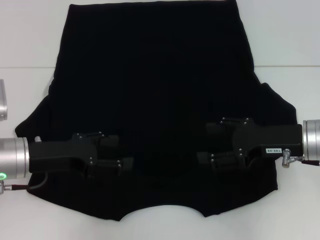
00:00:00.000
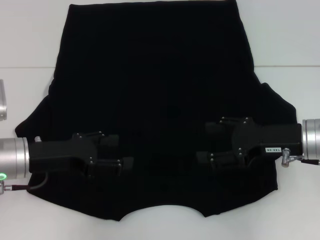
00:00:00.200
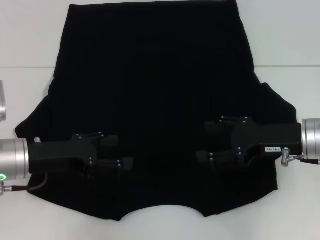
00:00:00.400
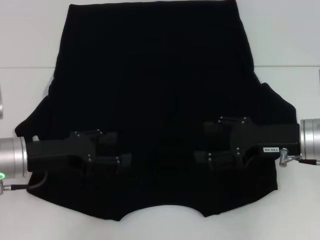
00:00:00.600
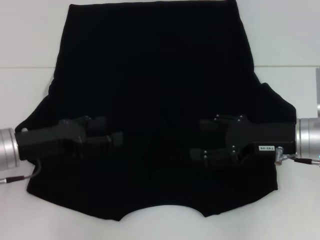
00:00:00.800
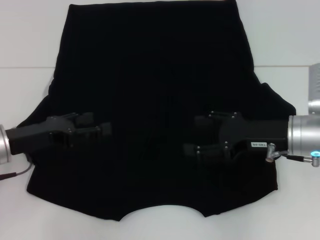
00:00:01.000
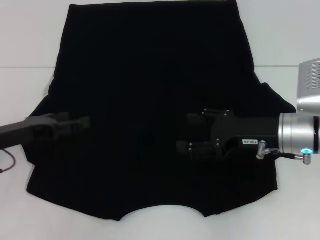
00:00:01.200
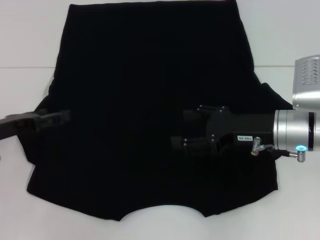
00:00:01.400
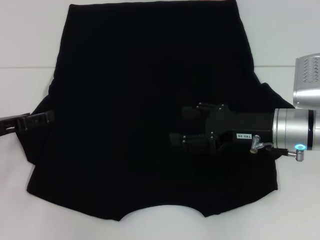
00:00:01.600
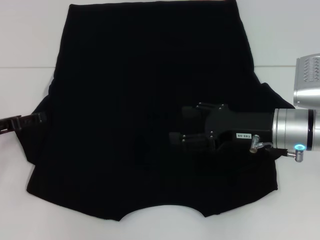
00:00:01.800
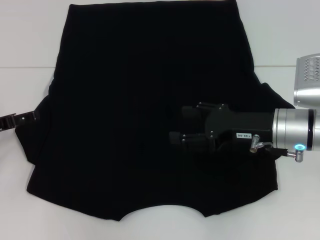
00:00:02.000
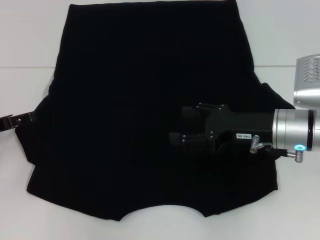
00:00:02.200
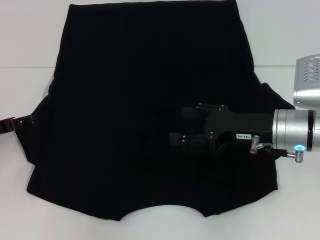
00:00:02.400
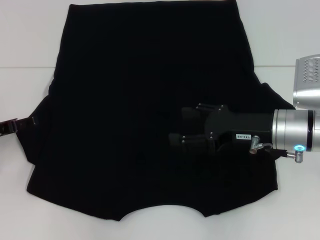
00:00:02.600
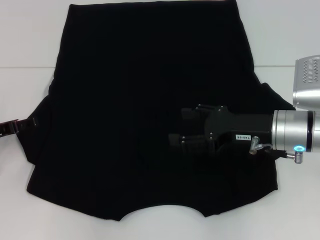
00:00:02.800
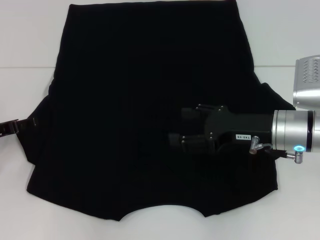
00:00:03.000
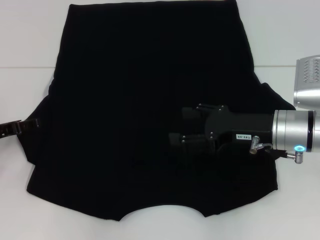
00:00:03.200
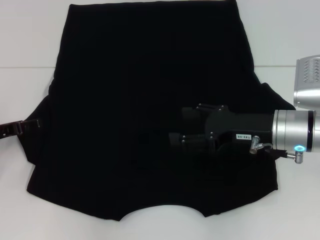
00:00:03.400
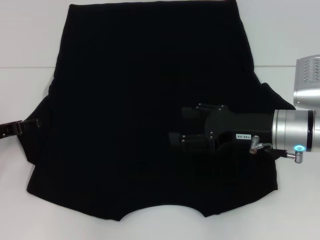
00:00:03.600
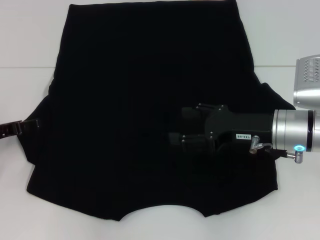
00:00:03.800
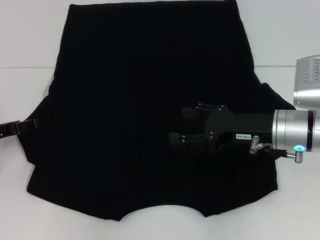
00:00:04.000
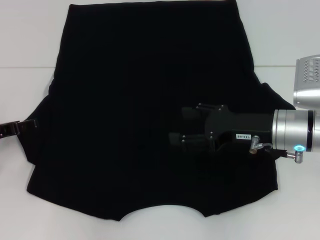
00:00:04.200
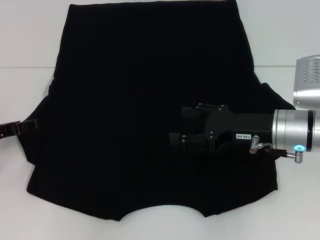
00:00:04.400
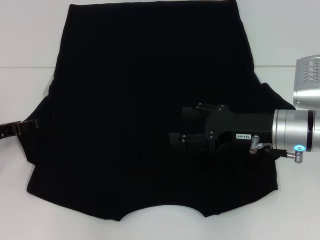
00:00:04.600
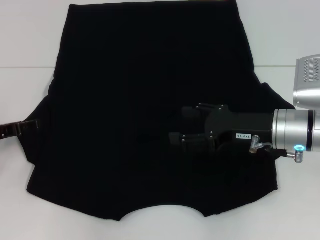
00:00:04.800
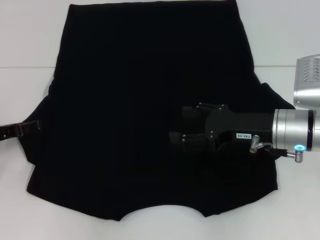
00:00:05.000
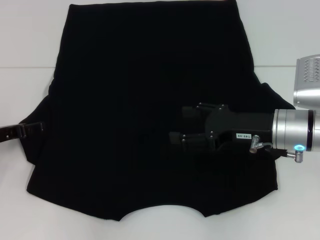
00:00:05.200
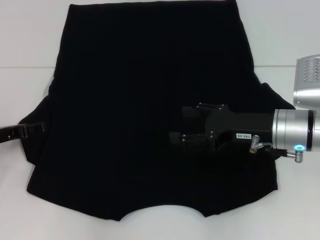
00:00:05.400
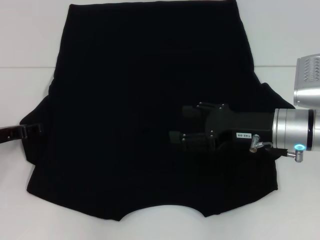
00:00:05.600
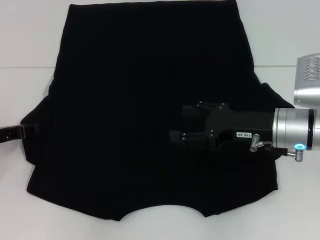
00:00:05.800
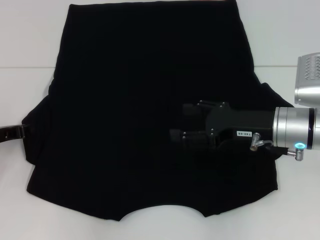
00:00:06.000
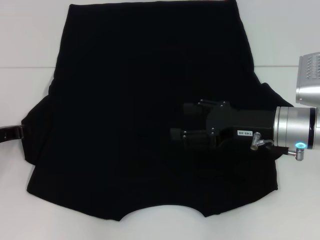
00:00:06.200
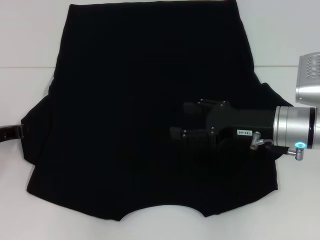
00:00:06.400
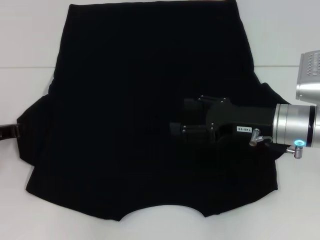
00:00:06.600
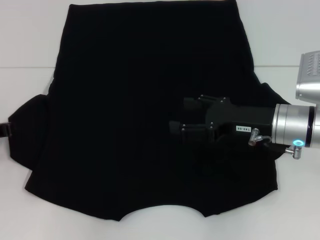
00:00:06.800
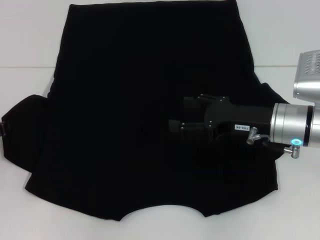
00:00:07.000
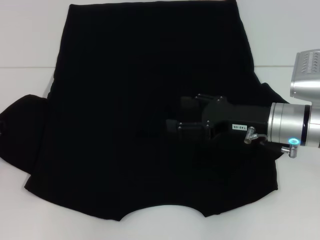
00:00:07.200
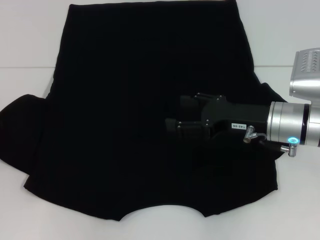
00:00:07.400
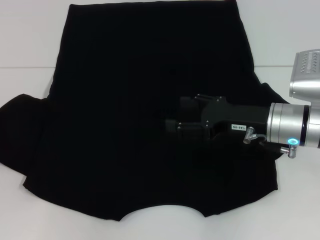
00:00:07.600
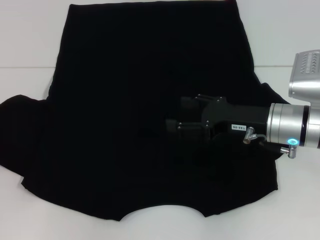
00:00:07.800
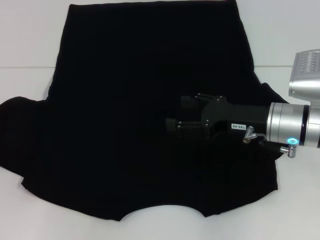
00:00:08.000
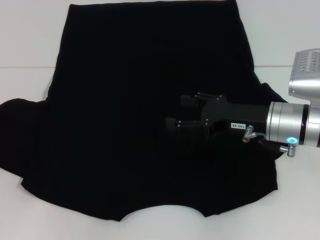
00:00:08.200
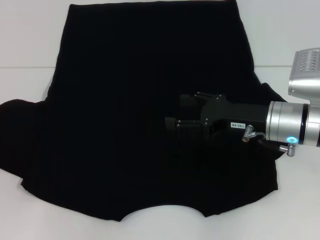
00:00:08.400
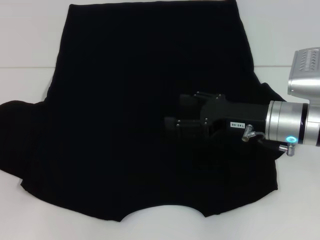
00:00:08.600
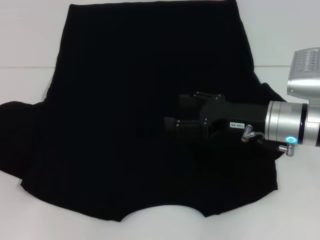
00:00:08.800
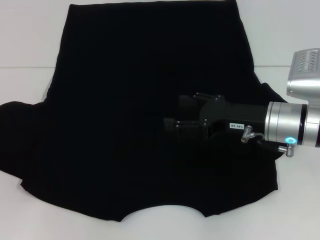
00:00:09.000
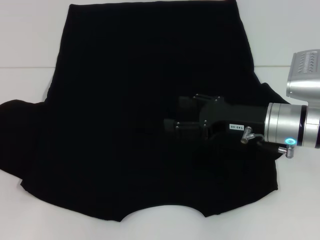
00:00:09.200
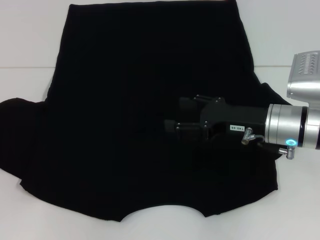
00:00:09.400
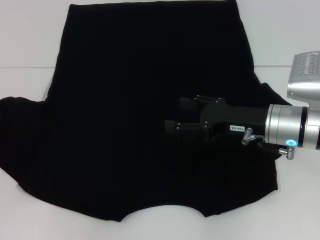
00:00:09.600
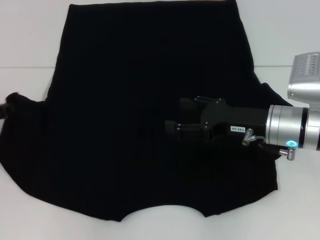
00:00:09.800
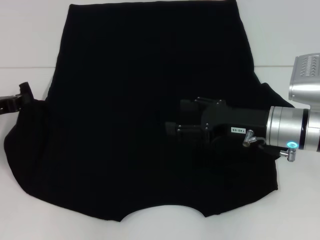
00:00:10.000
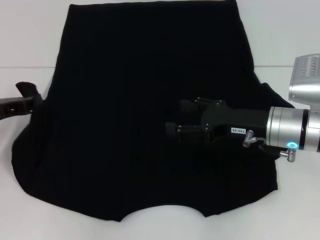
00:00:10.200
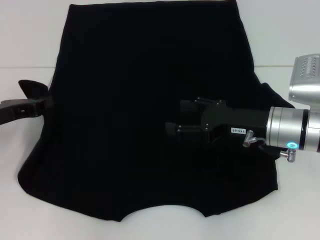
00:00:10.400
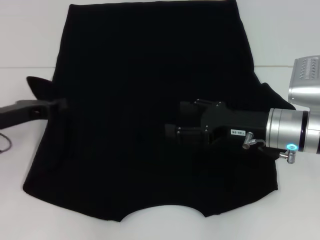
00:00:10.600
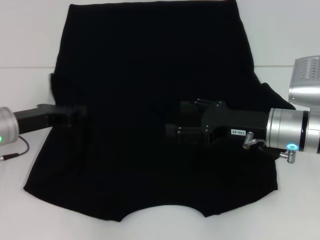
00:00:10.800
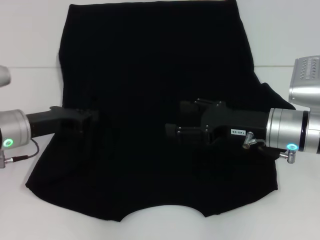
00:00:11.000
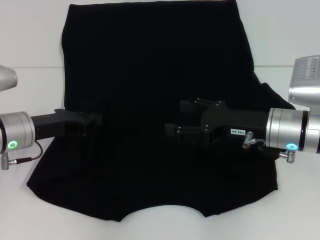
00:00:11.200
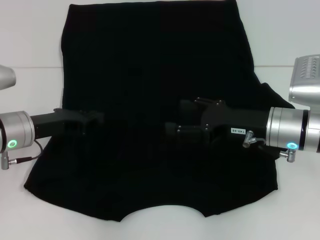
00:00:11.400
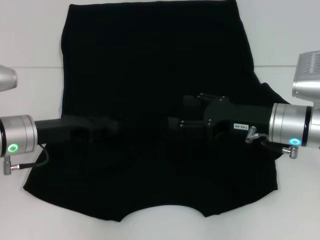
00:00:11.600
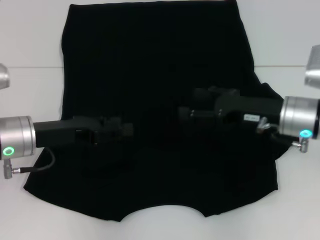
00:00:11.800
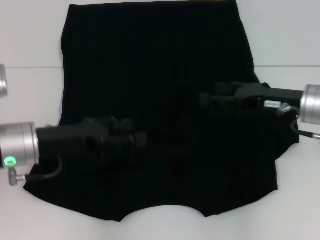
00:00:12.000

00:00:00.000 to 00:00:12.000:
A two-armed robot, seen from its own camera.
Step, 00:00:00.000 to 00:00:11.600: Fold the bottom left sleeve with your left hand.
00:00:00.000 to 00:00:01.600: The left gripper goes roughly 10 cm to the left.
00:00:01.600 to 00:00:03.000: The grippers stay close to where they were, moving slightly.
00:00:03.000 to 00:00:04.400: The two grippers keep their place.
00:00:06.000 to 00:00:07.600: The left gripper closes up.
00:00:07.600 to 00:00:09.000: There are only small adjustments of the grippers.
00:00:09.000 to 00:00:10.400: The left gripper goes approximately 5 cm to the right.
00:00:10.400 to 00:00:12.000: The left gripper moves to the right, about 10 cm, and opens its fingers. The right gripper ends up roughly 5 cm from where it was.

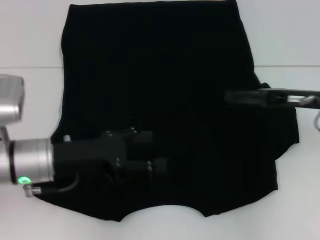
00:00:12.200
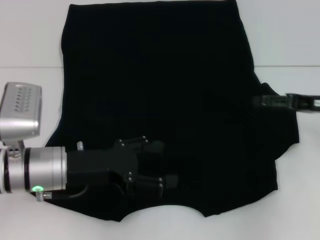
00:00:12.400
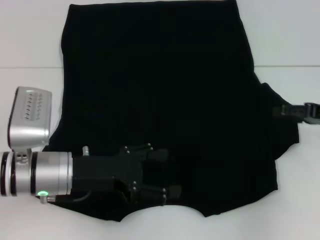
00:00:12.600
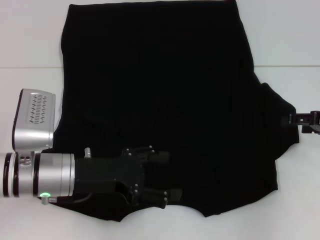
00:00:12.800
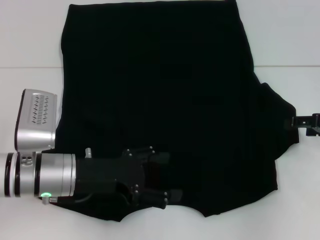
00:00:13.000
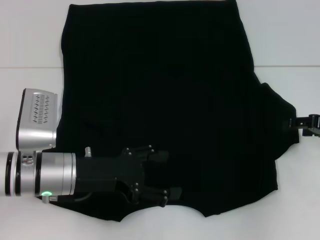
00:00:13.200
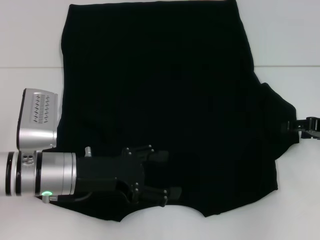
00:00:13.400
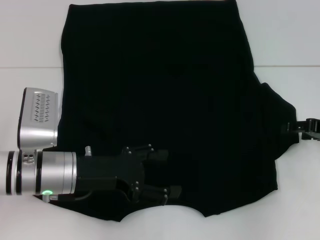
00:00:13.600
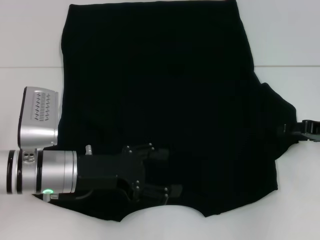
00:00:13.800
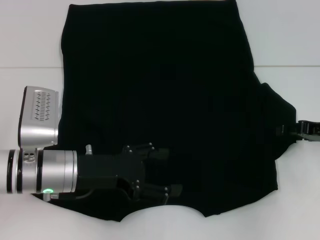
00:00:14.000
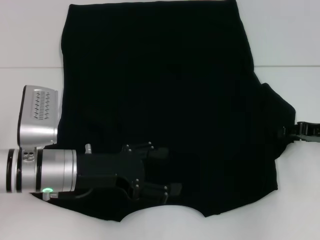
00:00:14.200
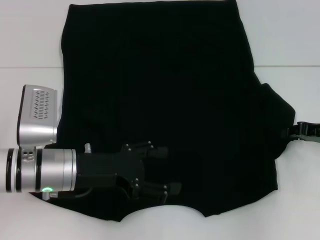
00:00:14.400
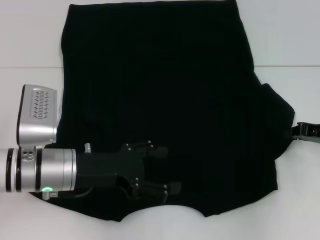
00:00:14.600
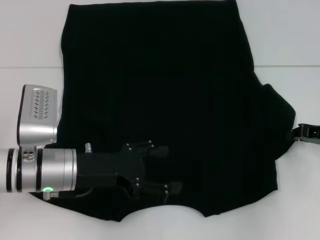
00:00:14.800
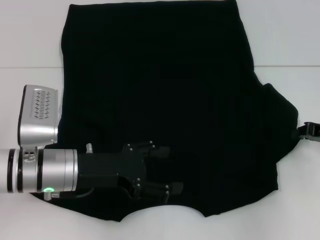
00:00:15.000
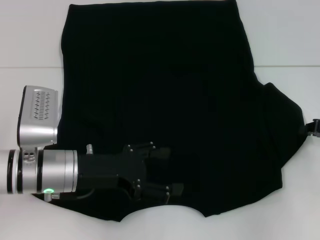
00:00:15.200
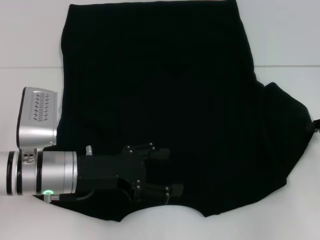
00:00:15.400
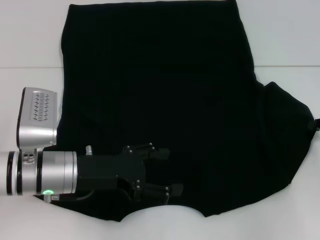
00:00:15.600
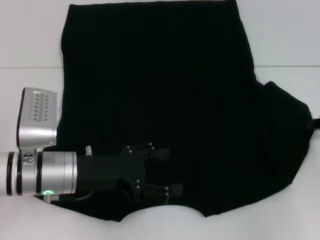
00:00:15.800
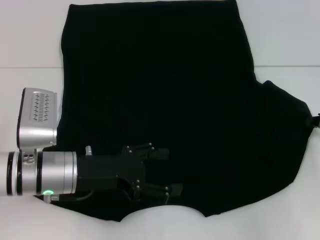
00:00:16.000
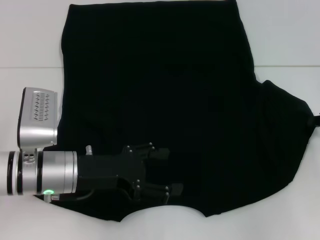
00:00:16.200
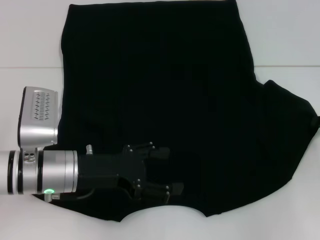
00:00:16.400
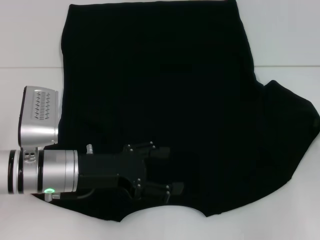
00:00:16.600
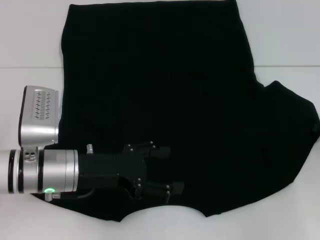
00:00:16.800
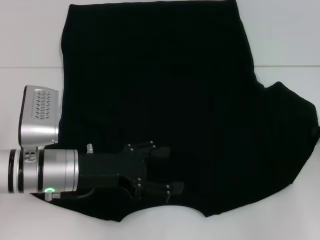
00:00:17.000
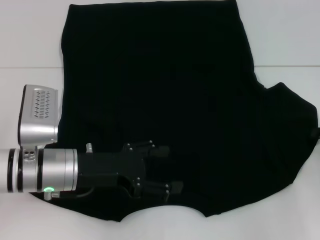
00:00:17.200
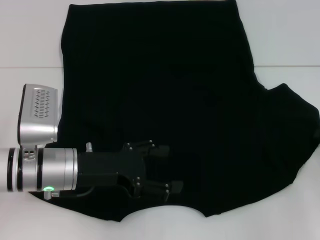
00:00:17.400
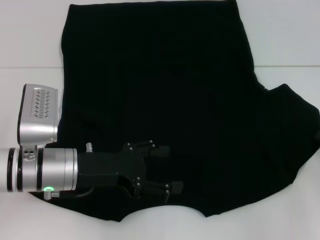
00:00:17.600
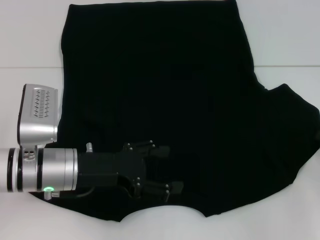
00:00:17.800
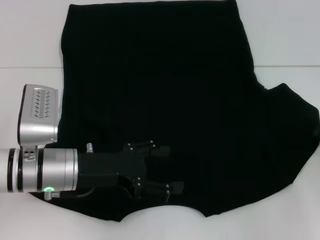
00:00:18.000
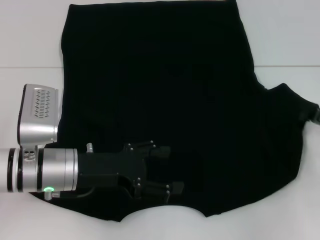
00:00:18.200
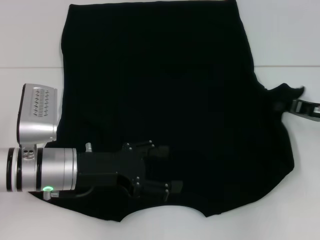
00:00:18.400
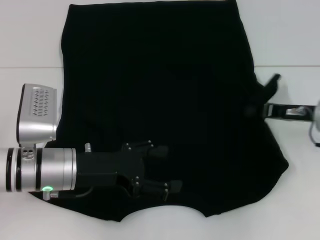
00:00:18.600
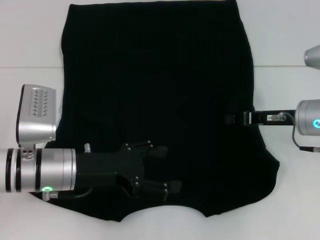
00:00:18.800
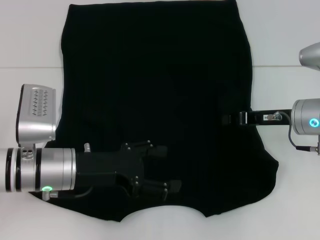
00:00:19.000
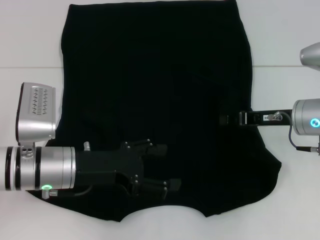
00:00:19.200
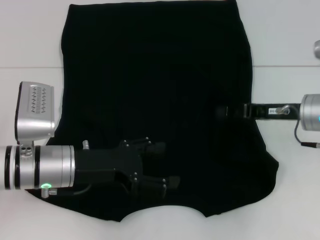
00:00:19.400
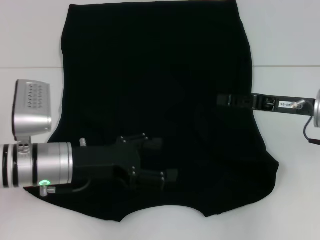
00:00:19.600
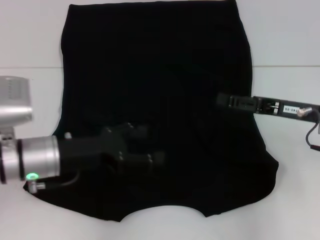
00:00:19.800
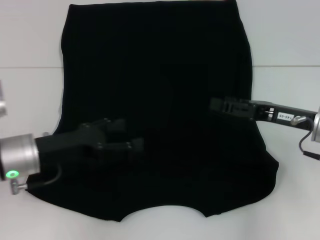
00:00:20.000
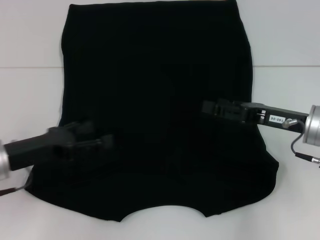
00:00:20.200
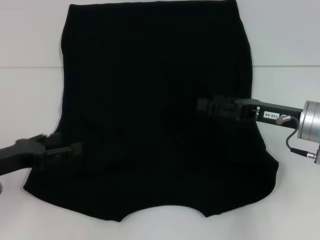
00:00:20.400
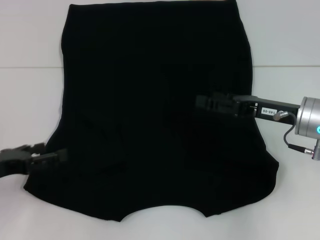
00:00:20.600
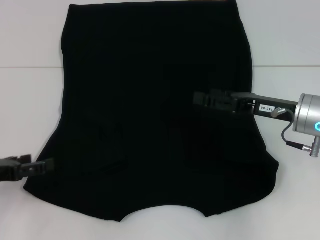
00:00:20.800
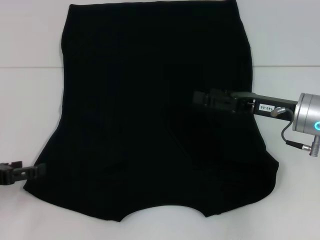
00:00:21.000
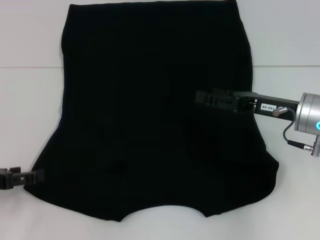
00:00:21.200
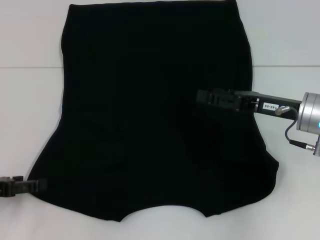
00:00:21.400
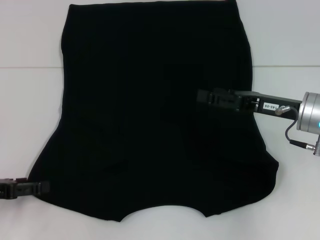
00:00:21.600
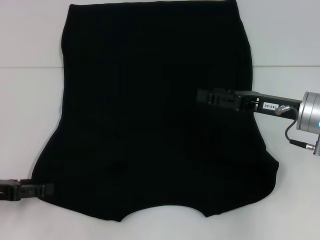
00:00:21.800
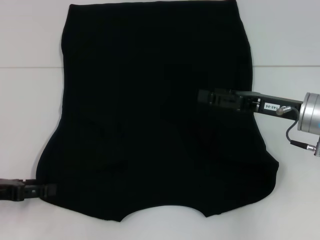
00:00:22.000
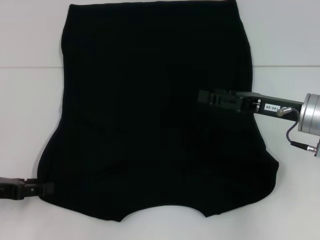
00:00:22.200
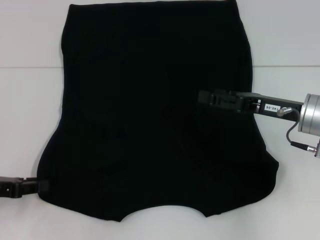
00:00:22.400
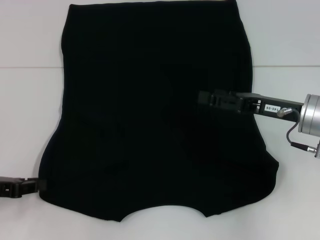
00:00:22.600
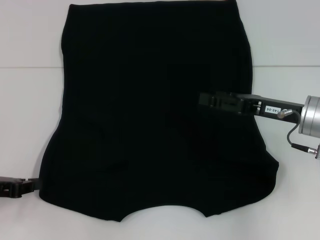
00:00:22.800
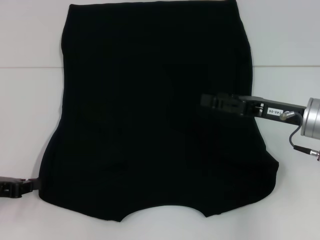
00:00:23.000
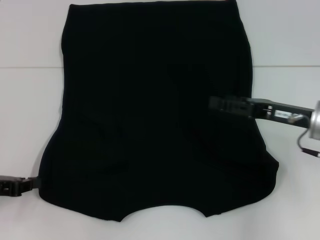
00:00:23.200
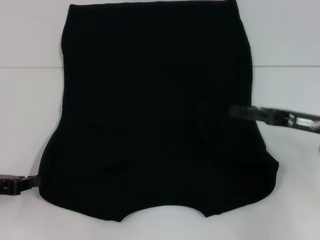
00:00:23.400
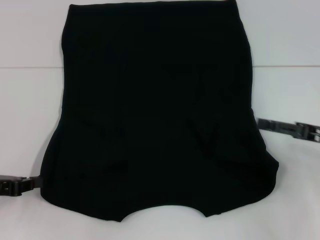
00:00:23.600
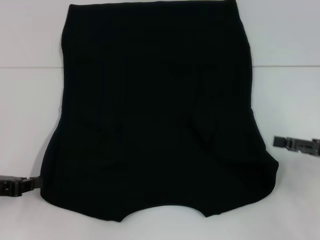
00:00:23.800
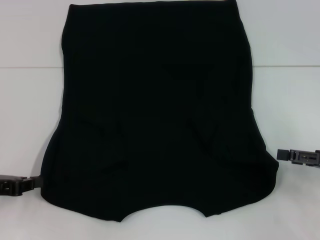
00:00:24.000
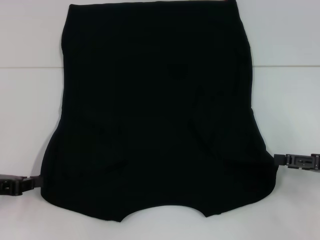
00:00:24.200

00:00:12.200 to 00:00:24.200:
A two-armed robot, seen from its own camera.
Step, 00:00:12.200 to 00:00:19.400: Fold the bottom right sleeve with your right hand.
Step, 00:00:19.600 to 00:00:23.600: Grab the bottom left corner with your left hand.
00:00:12.200 to 00:00:13.800: The right gripper goes approximately 5 cm to the right.
00:00:13.800 to 00:00:15.200: The right gripper closes up.
00:00:15.200 to 00:00:18.200: The grippers move only a little.
00:00:18.200 to 00:00:19.800: The right gripper is displaced to the left by roughly 10 cm, and opens.
00:00:19.800 to 00:00:21.200: The left gripper moves to the left, roughly 15 cm; the right gripper opens up.
00:00:21.200 to 00:00:22.600: The left gripper closes.
00:00:22.600 to 00:00:24.200: The right gripper moves to the right and backward, roughly 15 cm. Meanwhile the left gripper closes up.
